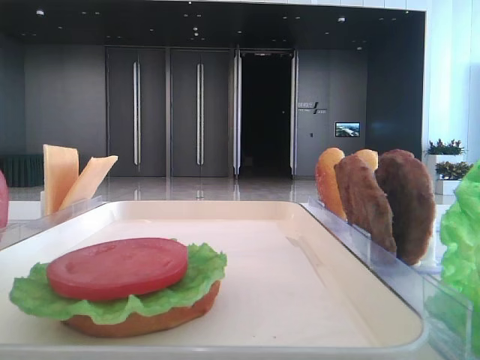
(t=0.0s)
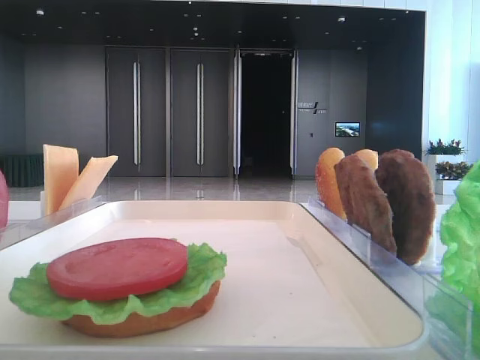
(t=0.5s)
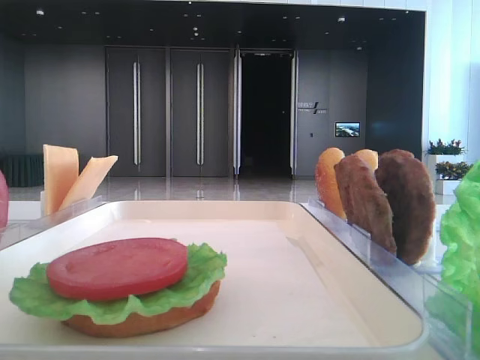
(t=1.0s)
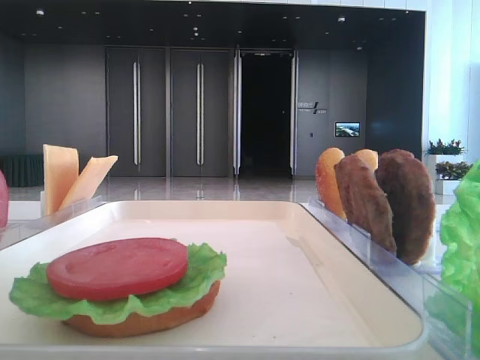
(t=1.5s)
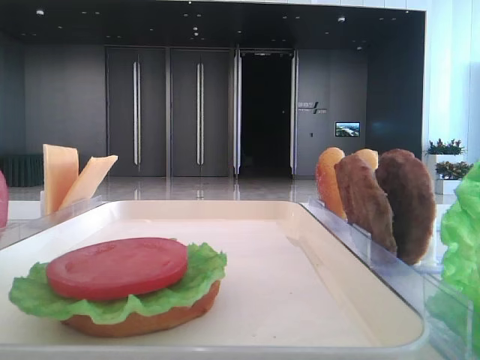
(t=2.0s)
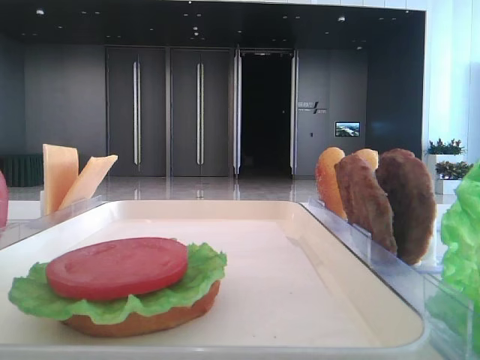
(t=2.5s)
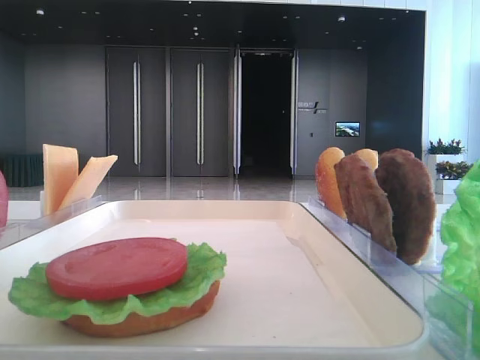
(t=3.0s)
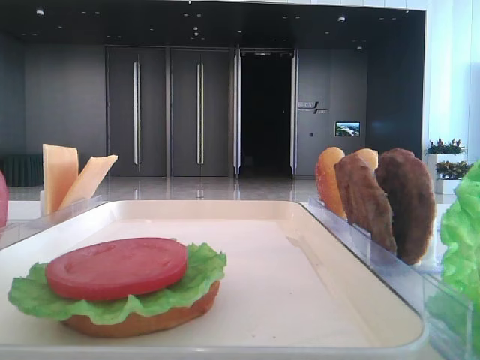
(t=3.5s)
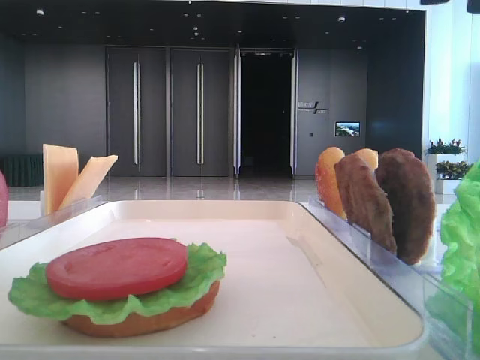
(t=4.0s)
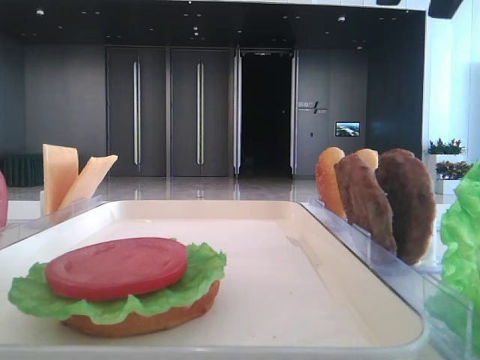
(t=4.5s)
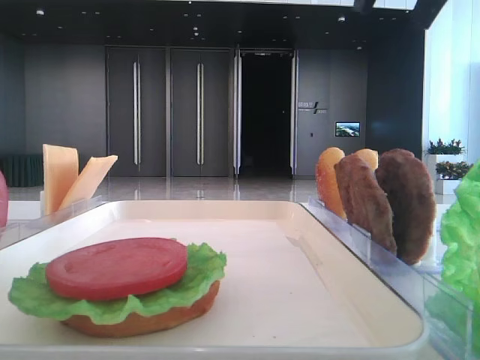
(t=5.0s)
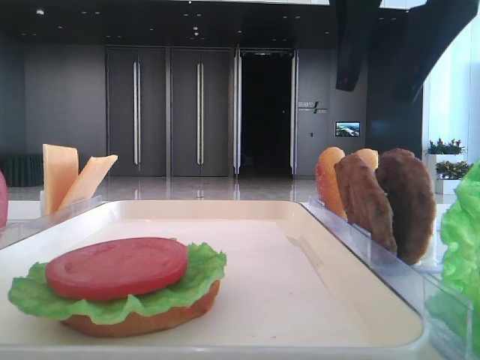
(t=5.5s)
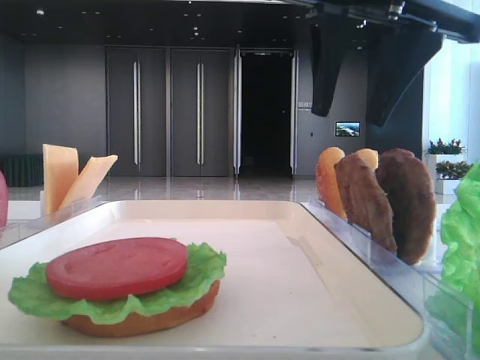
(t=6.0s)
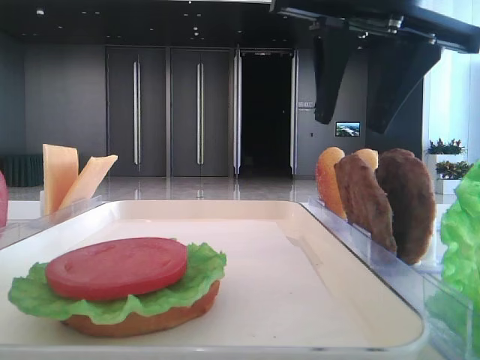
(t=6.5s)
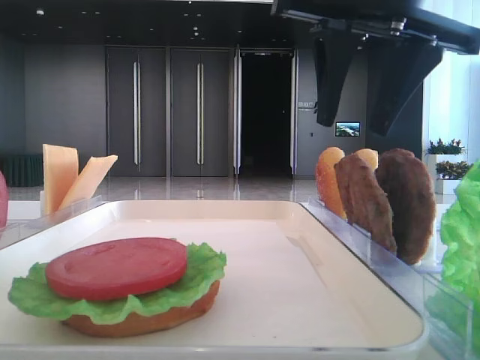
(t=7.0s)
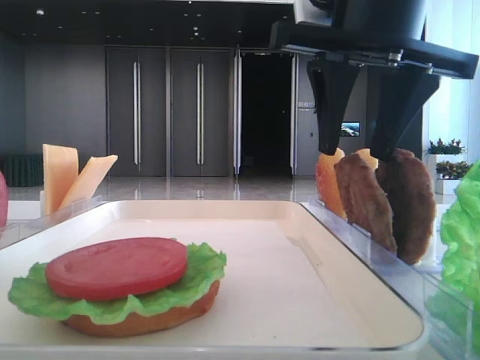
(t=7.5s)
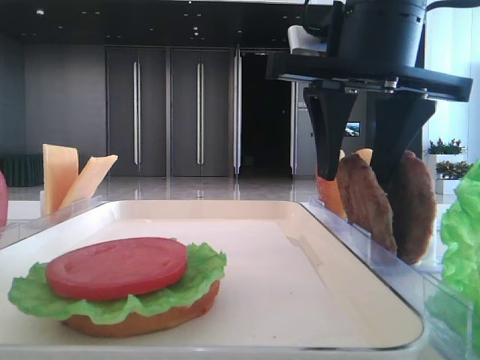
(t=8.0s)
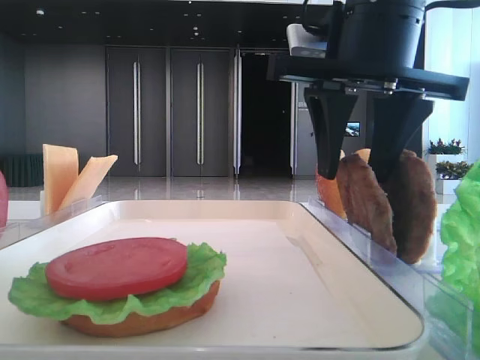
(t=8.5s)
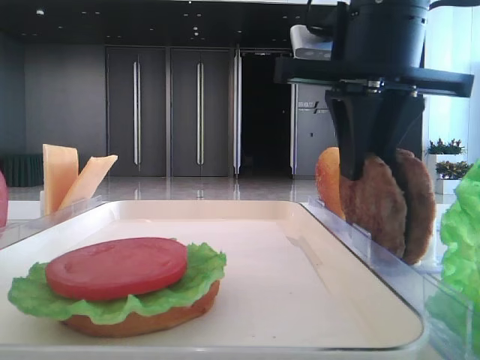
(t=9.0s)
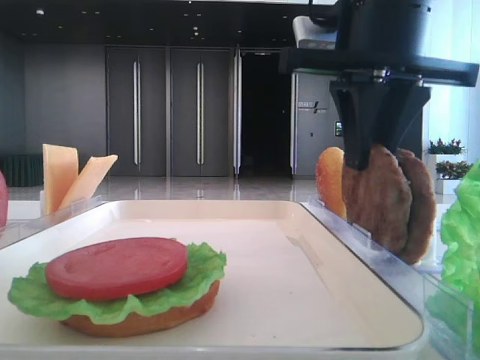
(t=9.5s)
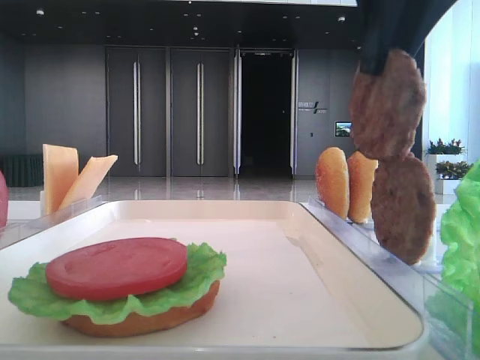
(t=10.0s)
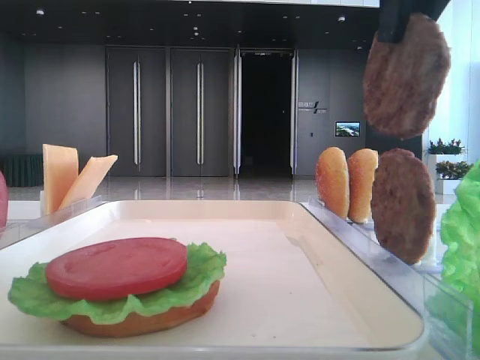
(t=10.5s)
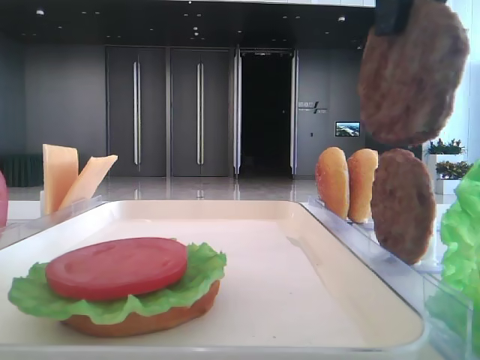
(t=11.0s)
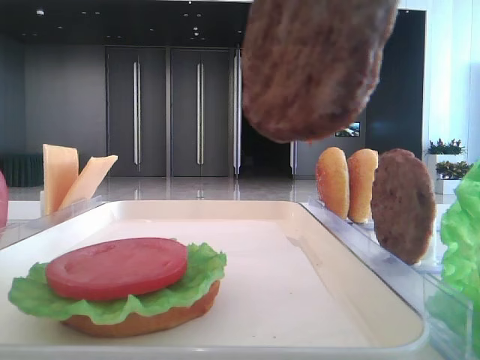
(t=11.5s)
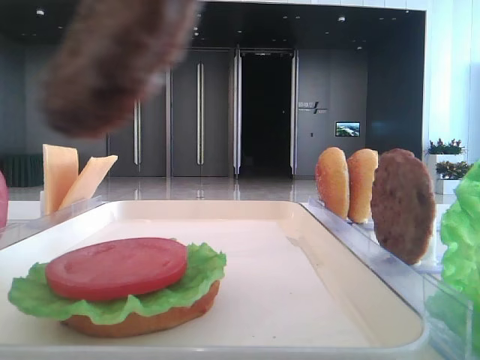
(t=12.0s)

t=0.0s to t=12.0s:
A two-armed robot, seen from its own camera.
Step, t=0.0s to t=9.0s: Grab the patty with the right hand.
t=4.0s to t=6.0s: The right gripper heads downward and forward, covering roughly 10 cm.
t=6.0s to t=8.0s: There are only small adjustments of the grippers.
t=8.0s to t=10.0s: The right gripper moves upward, approximately 10 cm, and closes its fingers.
t=10.0s to t=12.0s: The right gripper is displaced backward and to the left by approximately 15 cm.

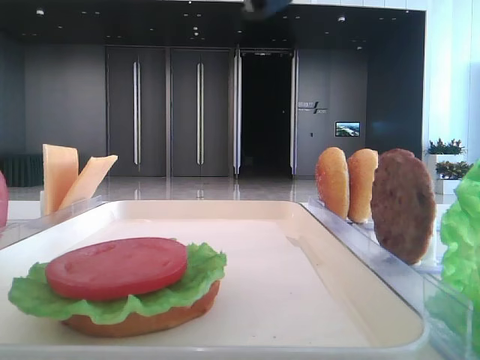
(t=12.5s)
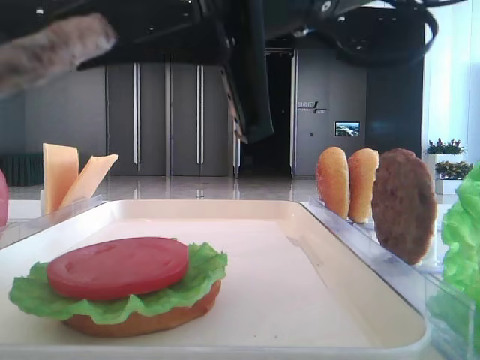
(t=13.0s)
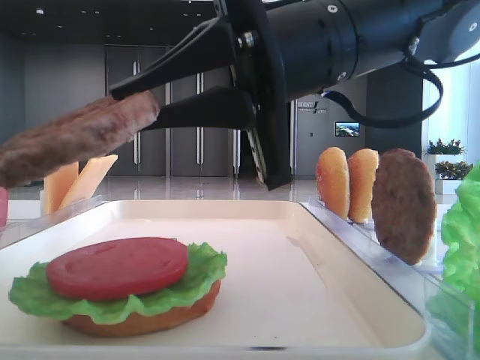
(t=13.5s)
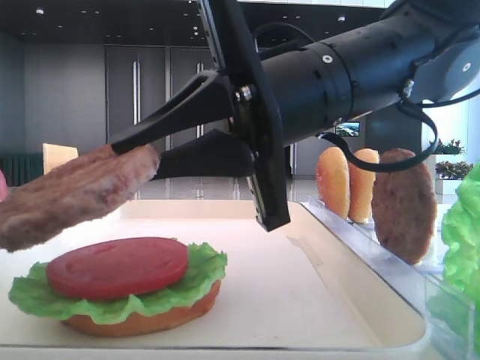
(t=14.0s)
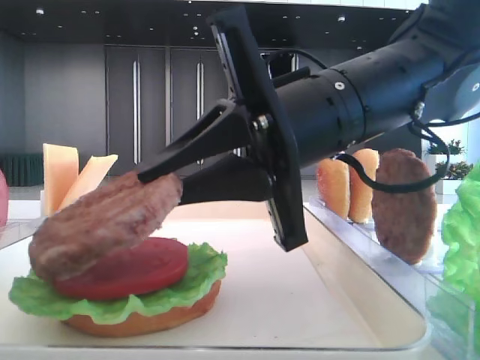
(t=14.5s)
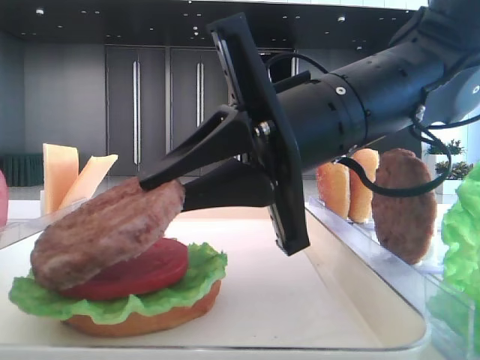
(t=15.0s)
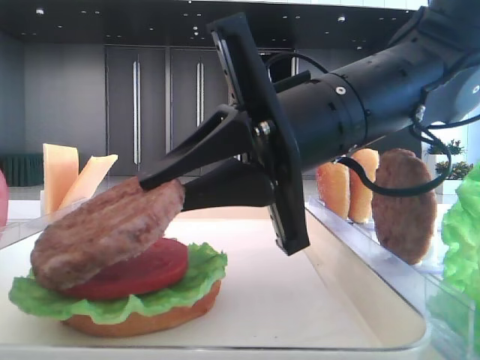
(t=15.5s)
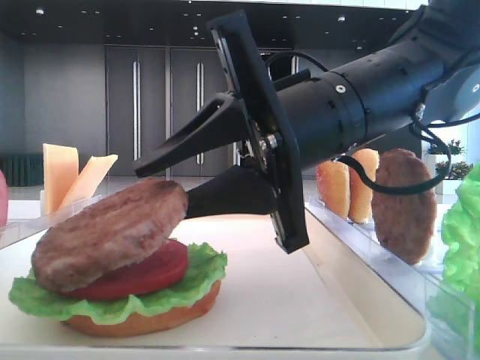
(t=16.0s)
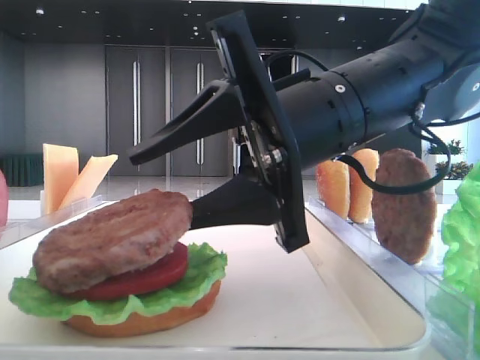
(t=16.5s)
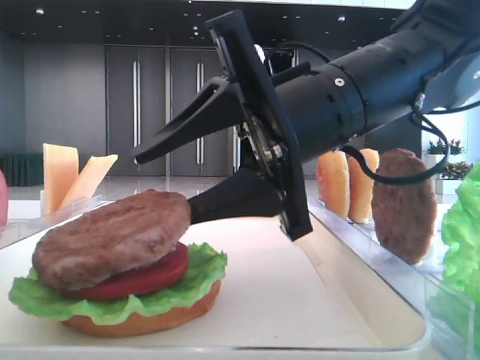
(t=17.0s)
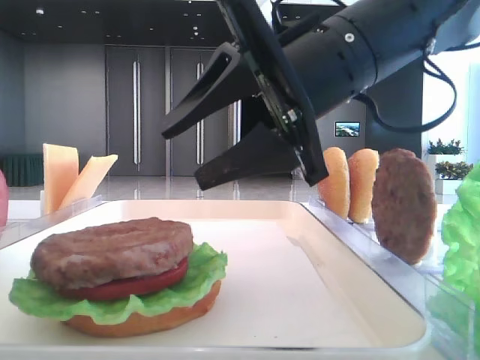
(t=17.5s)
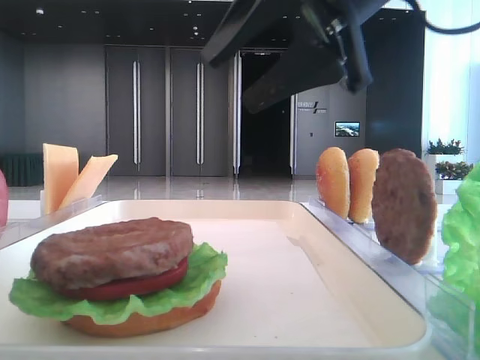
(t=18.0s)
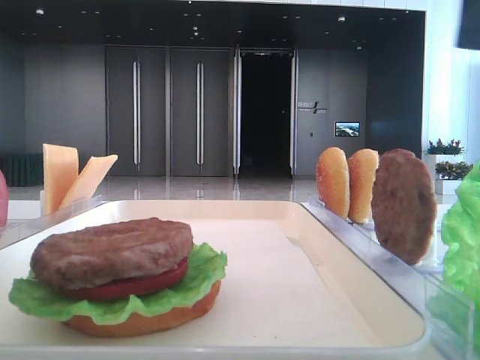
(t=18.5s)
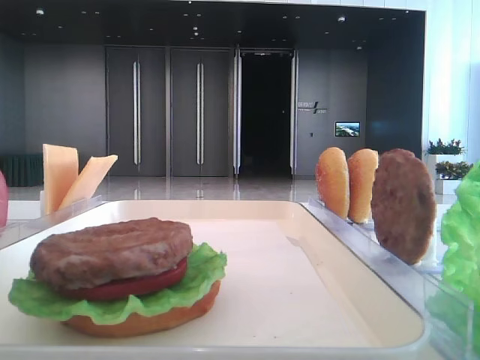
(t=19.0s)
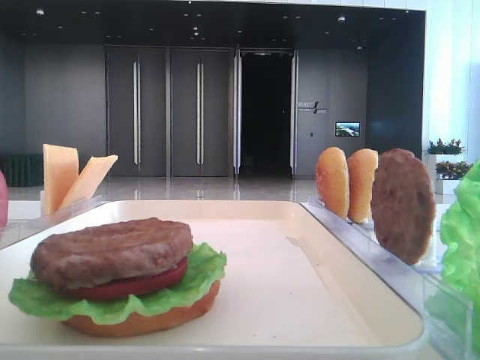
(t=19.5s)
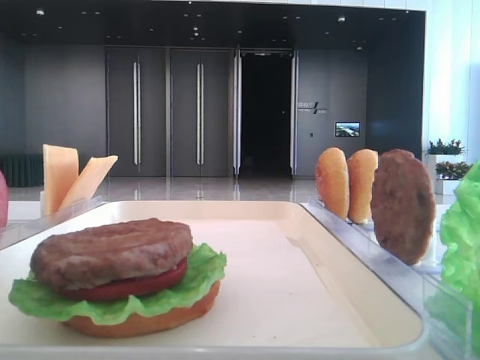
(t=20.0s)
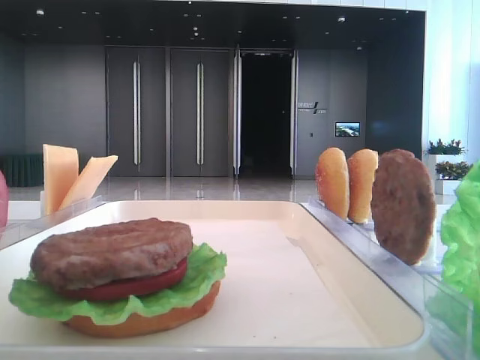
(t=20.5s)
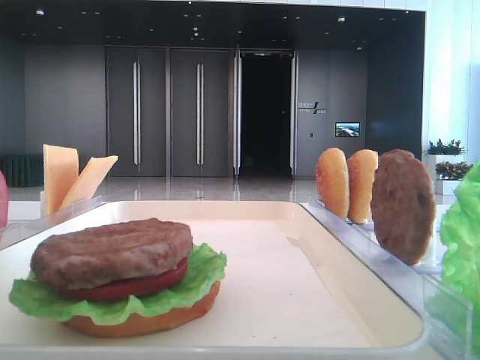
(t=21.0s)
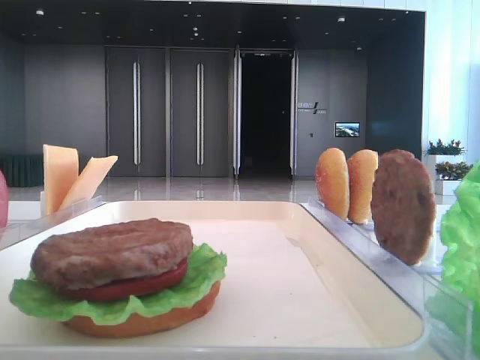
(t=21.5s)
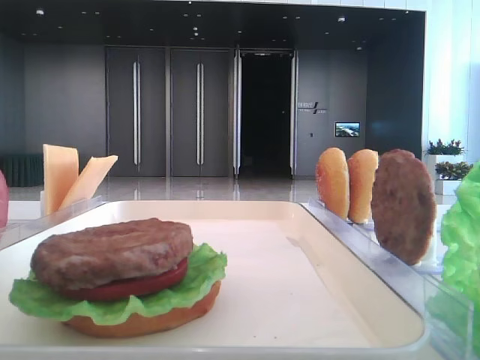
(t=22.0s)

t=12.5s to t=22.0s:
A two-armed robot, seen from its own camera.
Step, t=12.5s to t=17.0s: Place the patty on the tomato slice with the right hand.
t=12.5s to t=14.5s: The right gripper is displaced downward and forward by roughly 15 cm.
t=14.5s to t=16.5s: The right gripper opens.
t=16.5s to t=18.0s: The right gripper goes approximately 10 cm upward.
t=18.0s to t=20.0s: The right gripper heads to the right, backward and upward, covering roughly 30 cm.

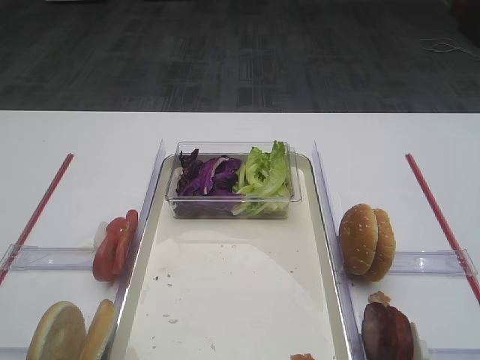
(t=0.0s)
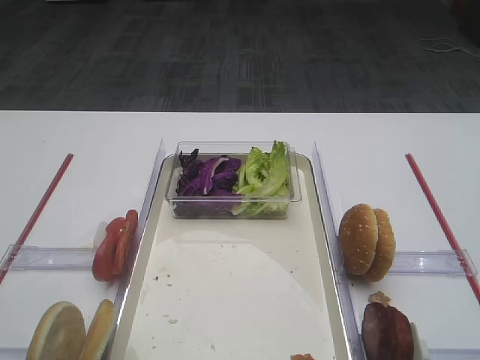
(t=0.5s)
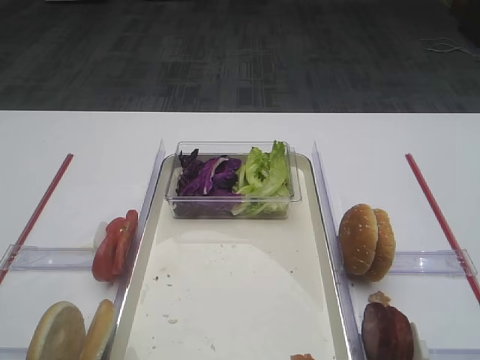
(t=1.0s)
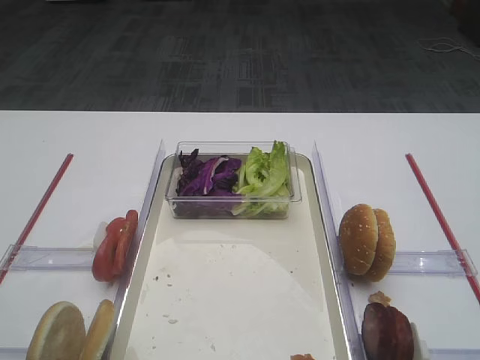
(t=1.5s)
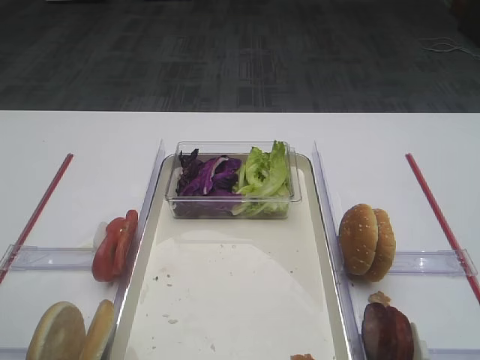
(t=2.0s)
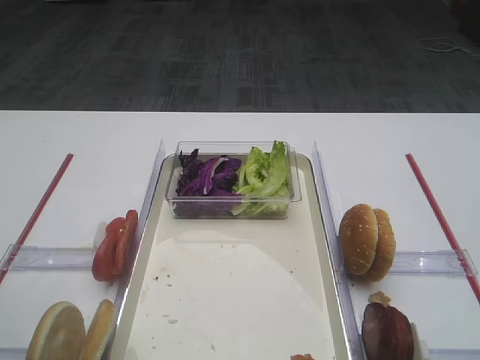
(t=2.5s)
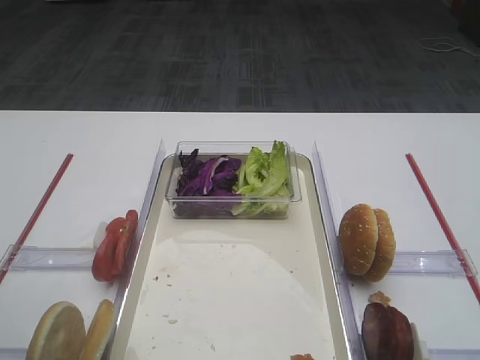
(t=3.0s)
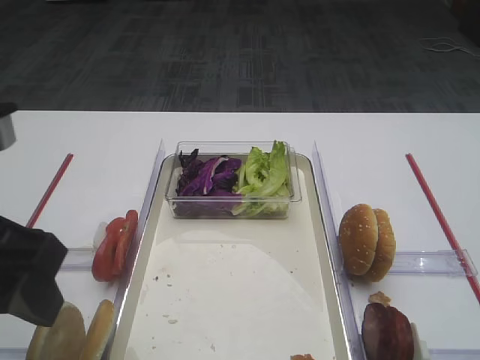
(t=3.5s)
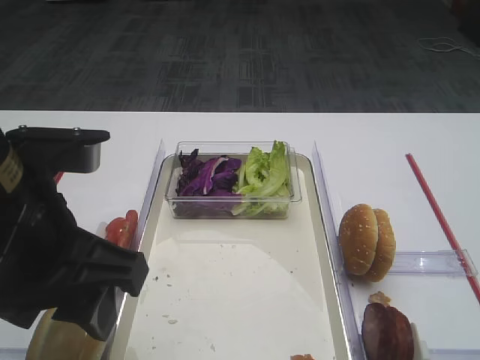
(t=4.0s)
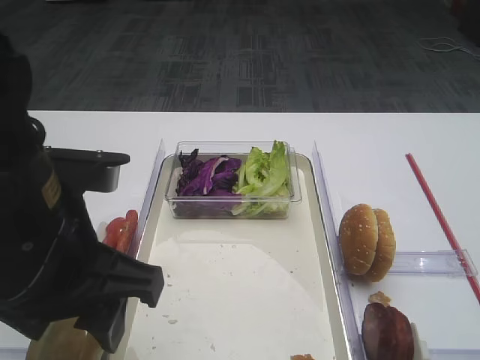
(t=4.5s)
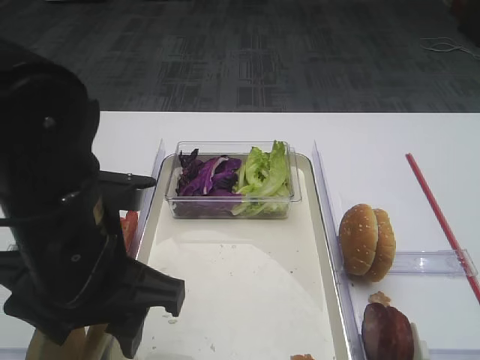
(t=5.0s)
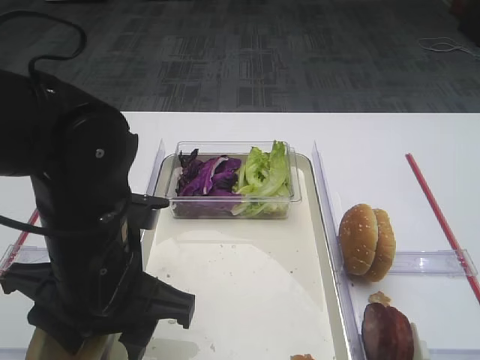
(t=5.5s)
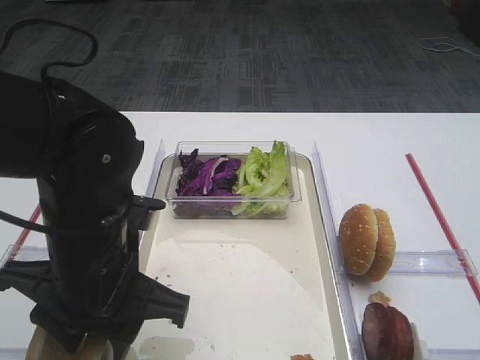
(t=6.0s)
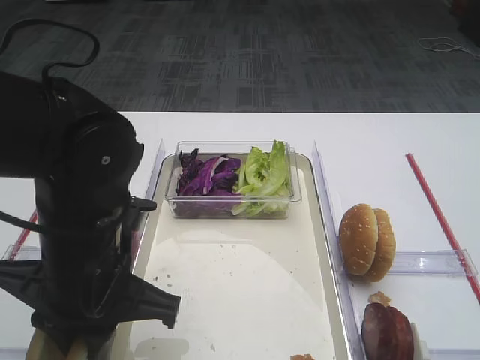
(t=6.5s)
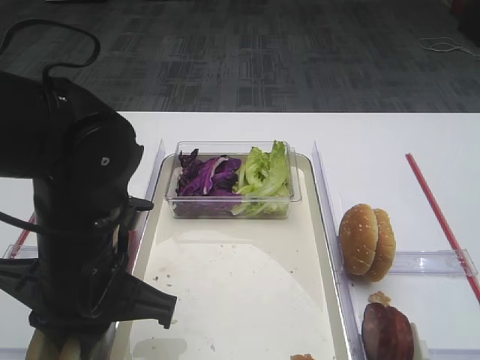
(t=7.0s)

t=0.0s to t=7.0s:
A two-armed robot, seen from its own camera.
t=2.0s to t=3.5s: The left gripper moves to the right, approximately 10 cm.
t=3.5s to t=5.0s: The left gripper heads to the right and downward, covering approximately 10 cm.
t=5.0s to t=7.0s: The left gripper closes its fingers.
